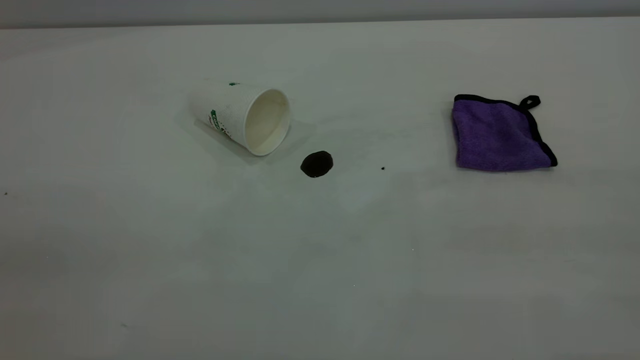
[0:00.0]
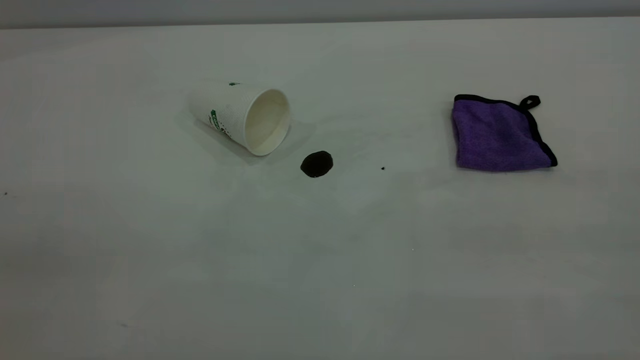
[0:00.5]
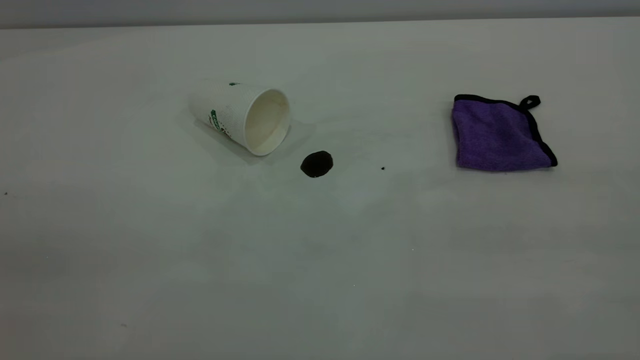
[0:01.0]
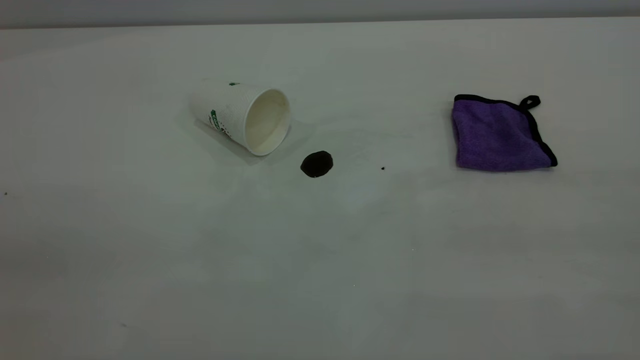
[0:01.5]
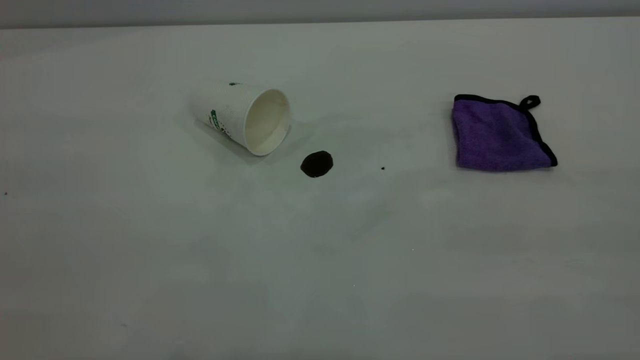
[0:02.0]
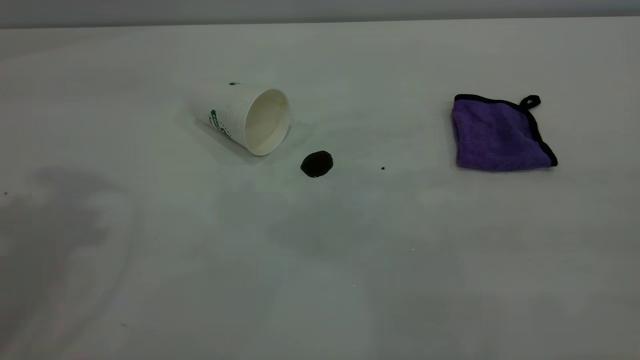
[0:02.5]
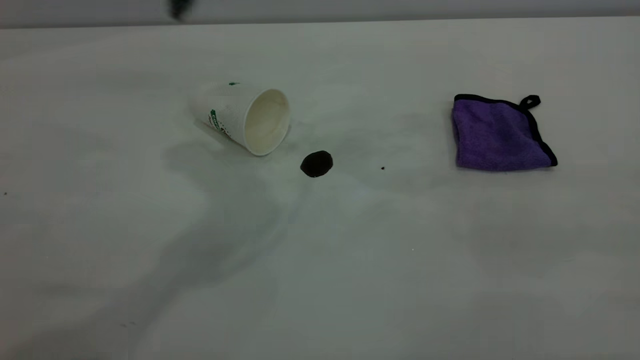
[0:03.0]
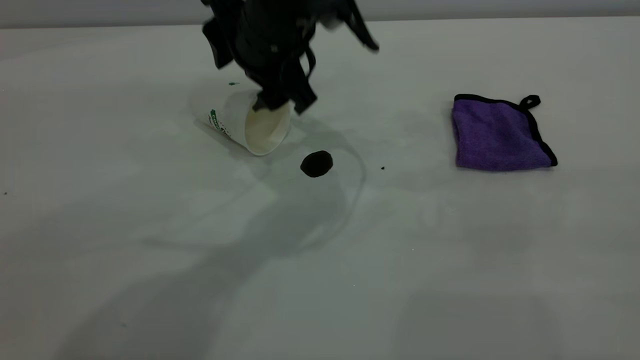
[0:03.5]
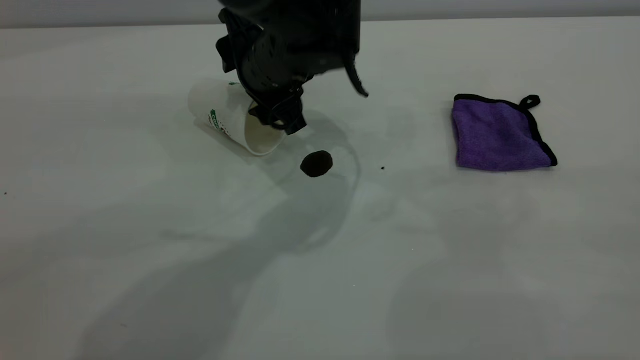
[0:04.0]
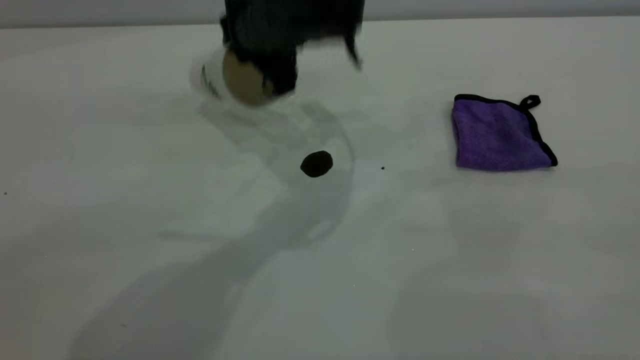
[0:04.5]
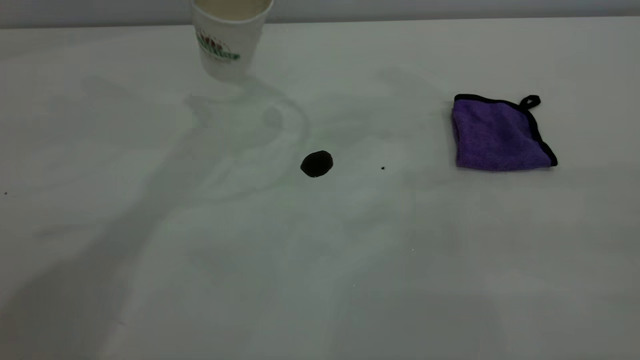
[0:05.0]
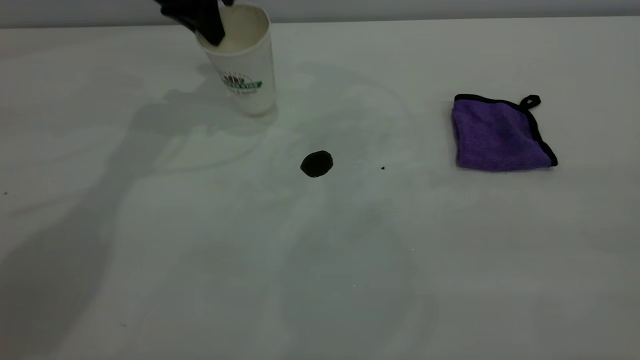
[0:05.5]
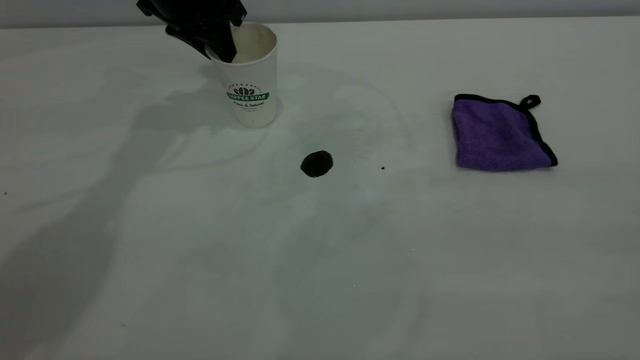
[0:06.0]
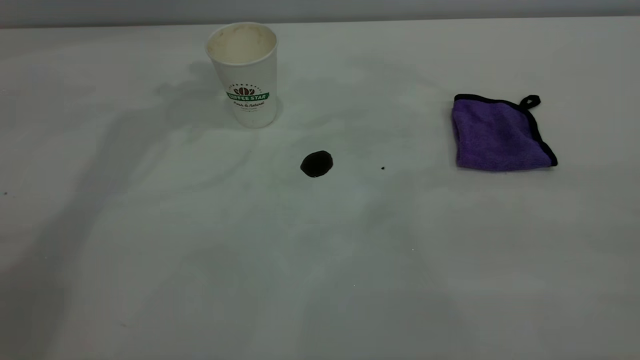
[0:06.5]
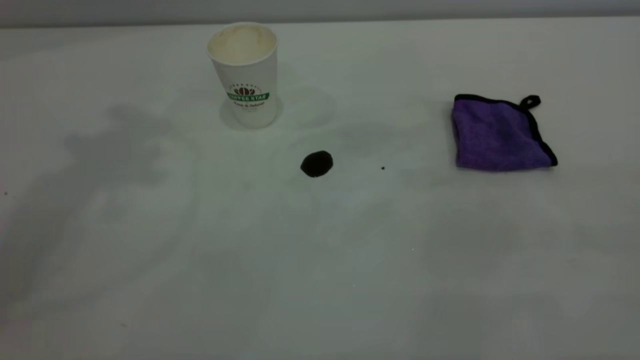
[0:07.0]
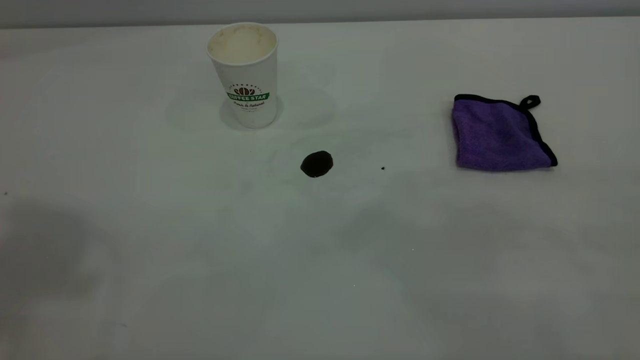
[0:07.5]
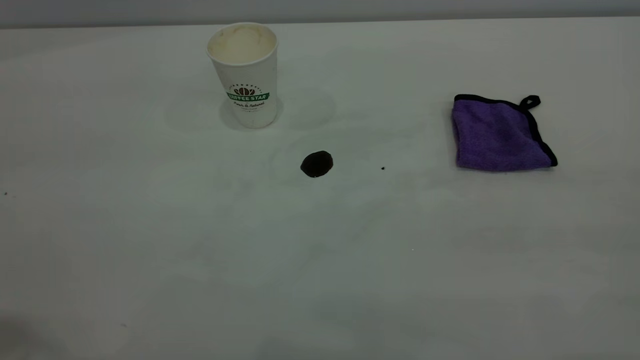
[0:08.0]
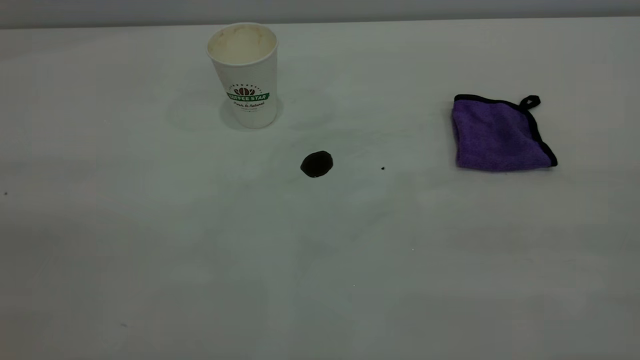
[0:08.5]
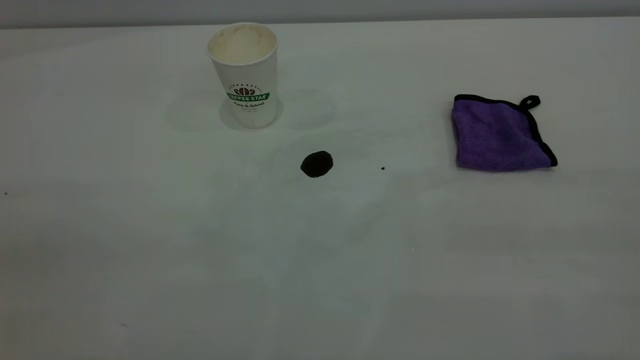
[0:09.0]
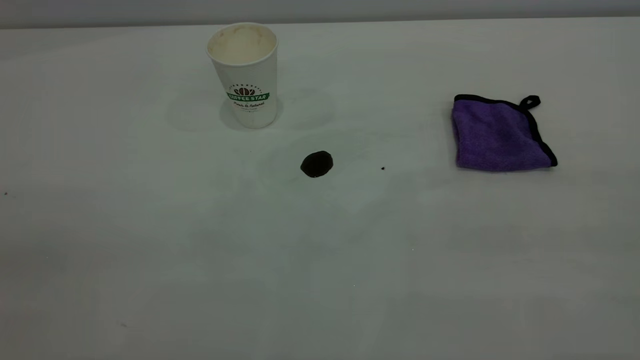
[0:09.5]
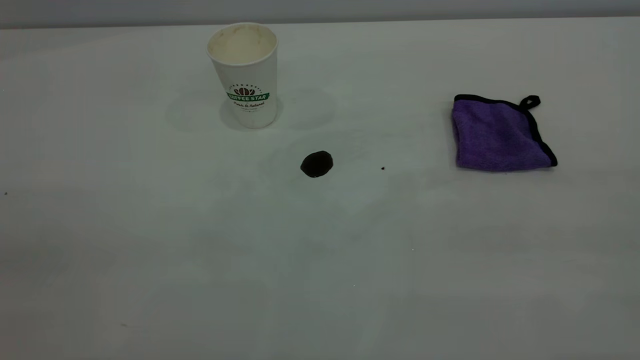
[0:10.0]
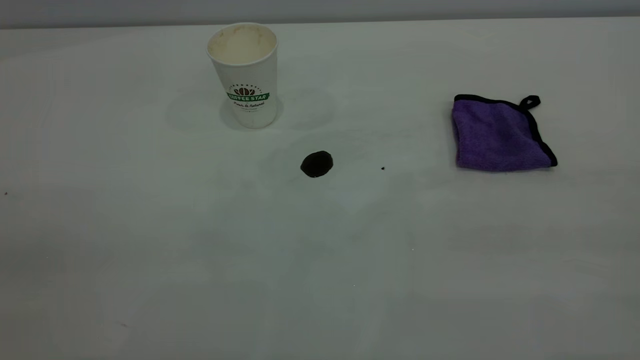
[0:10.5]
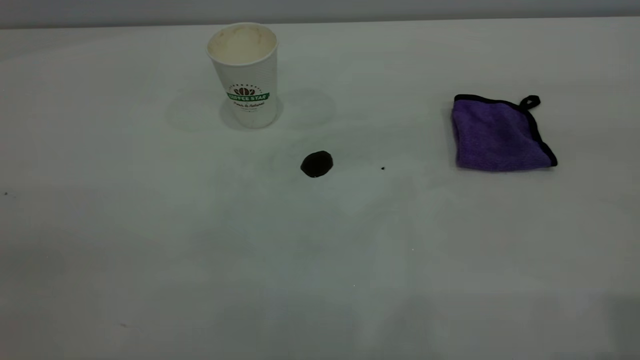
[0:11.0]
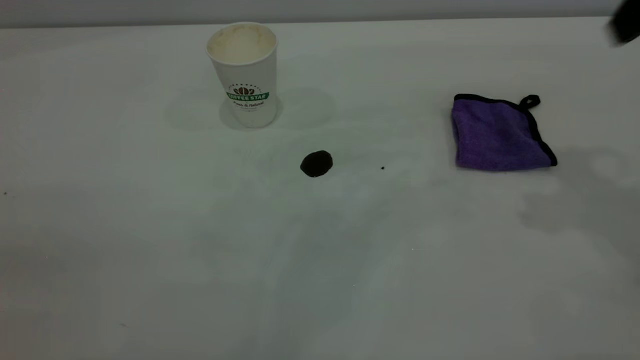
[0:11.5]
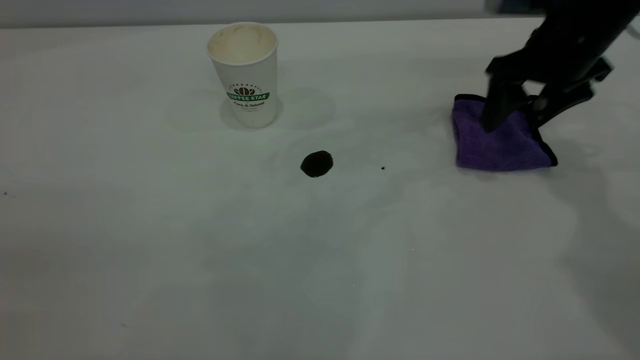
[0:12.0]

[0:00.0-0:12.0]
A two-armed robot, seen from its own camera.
Task of the whole recording: the left gripper pick up the fallen cup and place it upright, the right gripper grasp the purple rag and wipe the coffee stain on the table, the right gripper put the purple rag back in its original position.
Step, 0:00.0 to 0:06.0: Stand the paper cup upright.
0:02.0 to 0:04.0: The left gripper moves downward, forward and to the right, about 50 cm.
0:04.0 to 0:06.0: The left gripper is displaced to the left, forward and upward by roughly 20 cm, and closes up.
0:06.0 to 0:08.0: The left gripper is displaced backward and upward by approximately 50 cm.
0:10.0 to 0:12.0: The right gripper heads forward and downward, covering roughly 50 cm, and opens up.

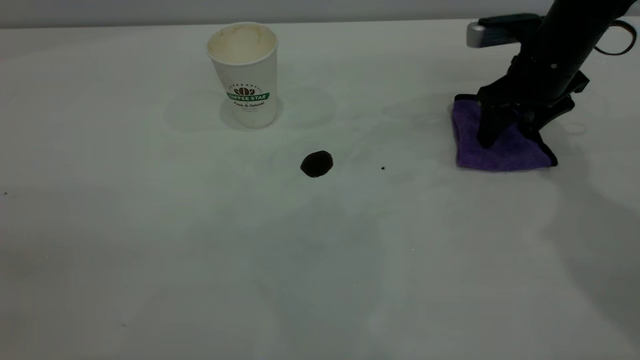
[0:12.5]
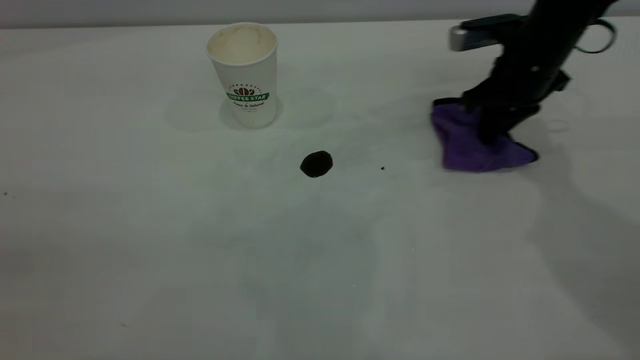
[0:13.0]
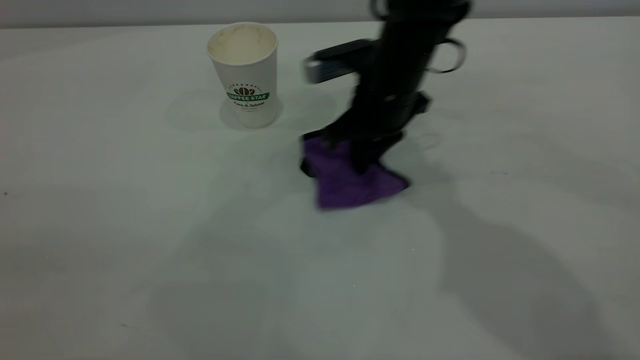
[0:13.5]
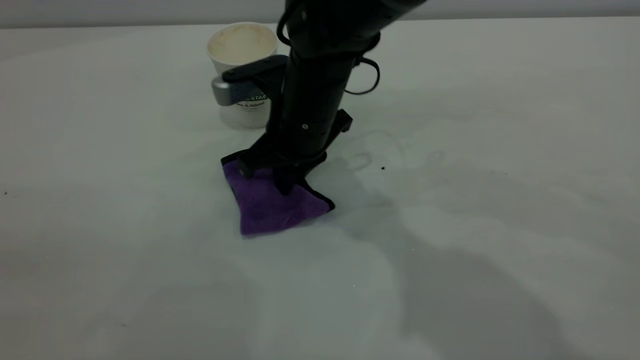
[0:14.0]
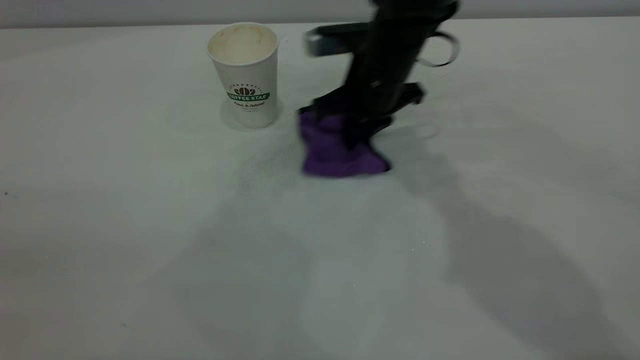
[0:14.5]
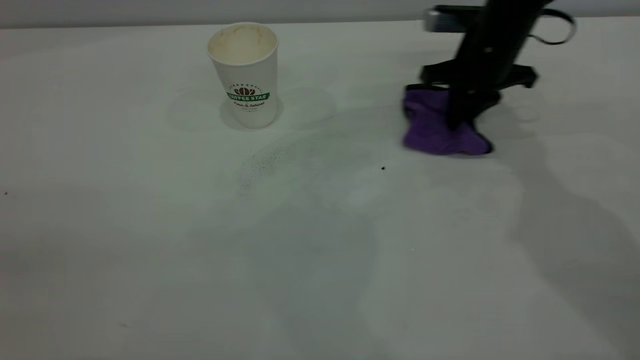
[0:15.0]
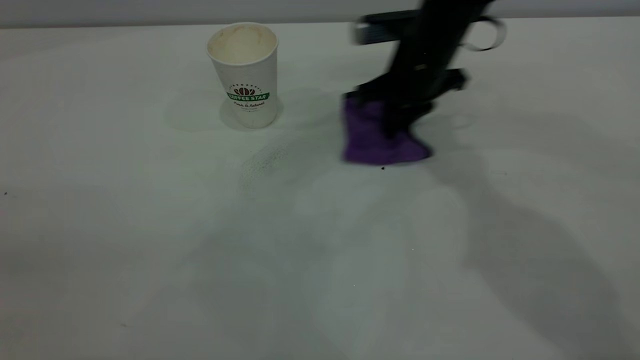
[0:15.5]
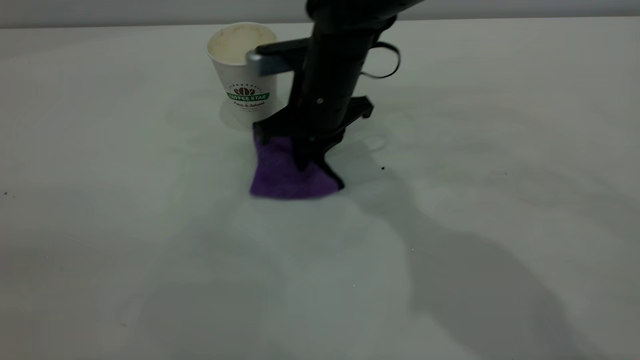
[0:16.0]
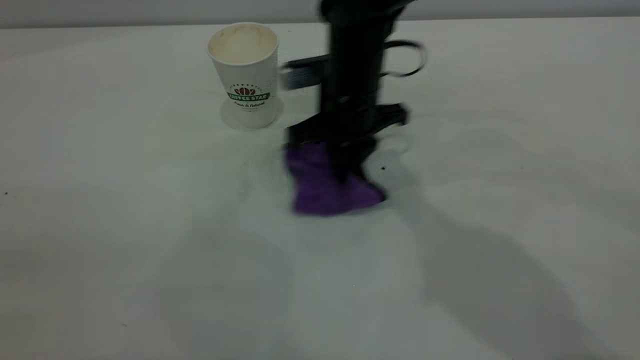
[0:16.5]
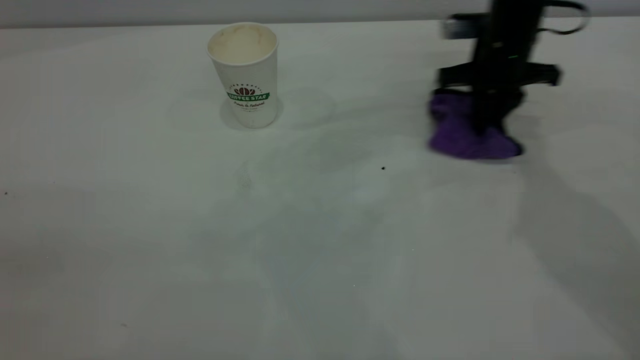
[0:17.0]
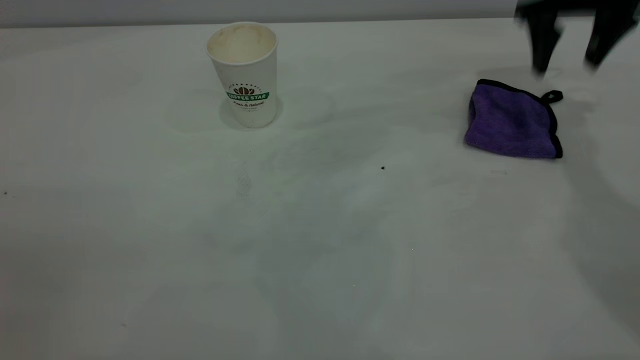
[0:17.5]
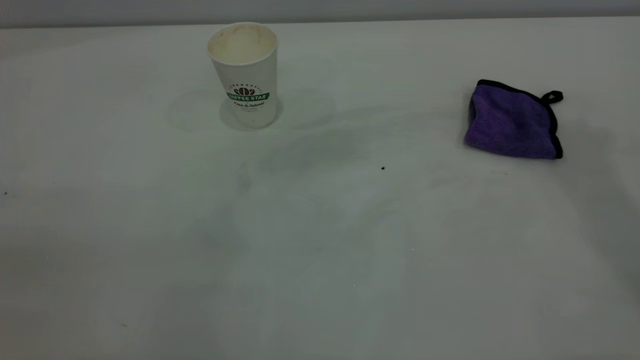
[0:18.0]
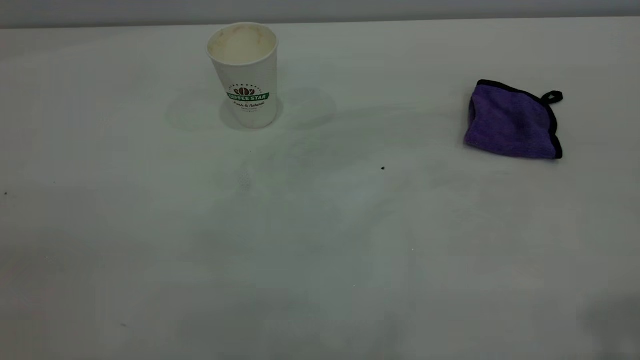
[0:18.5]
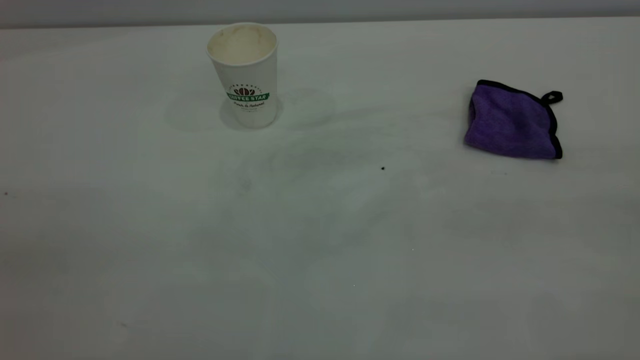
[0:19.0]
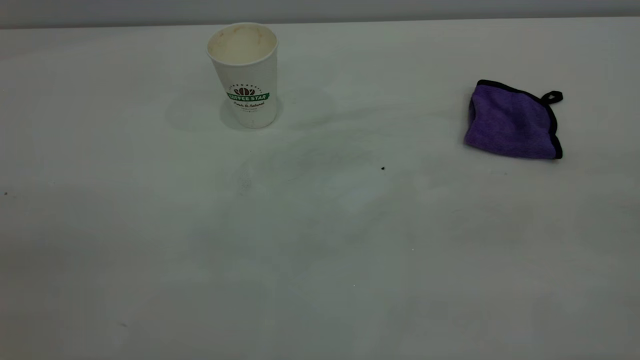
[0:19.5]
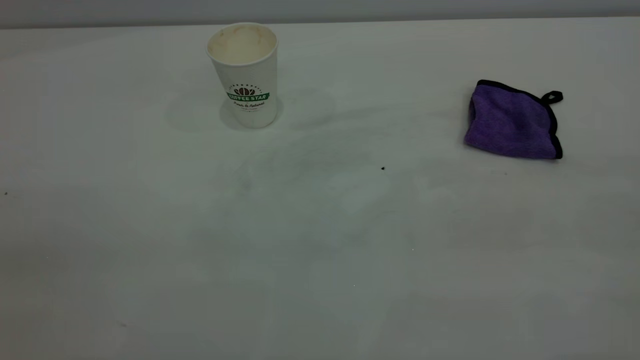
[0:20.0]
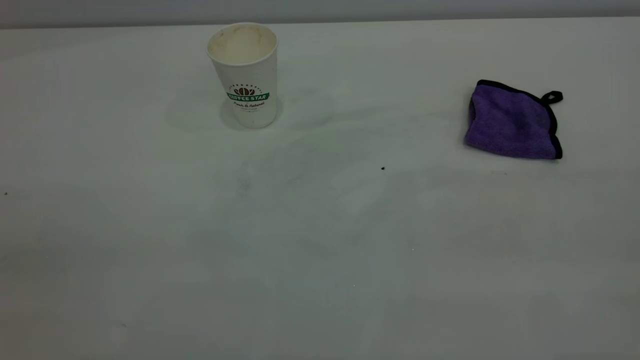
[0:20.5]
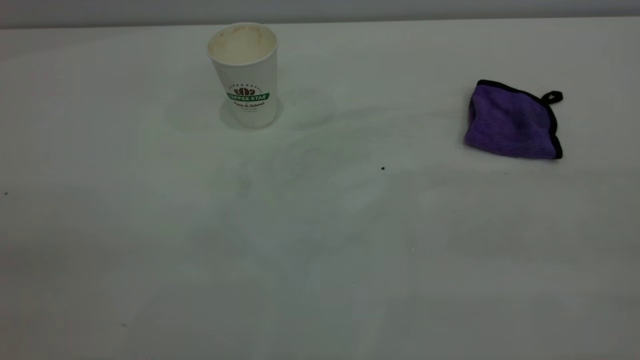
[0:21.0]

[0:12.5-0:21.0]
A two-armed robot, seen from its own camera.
Task of the whole recording: the left gripper pick up the fallen cup and place it upright, the right gripper grasp the purple rag and wipe the coffee stain on the table, the right gripper put the purple rag back in its original position.
Step, 0:12.5 to 0:17.0: Wipe the stains off the table with a rag.
0:12.5 to 0:14.5: The right gripper shifts about 15 cm to the left, and closes up.
0:14.5 to 0:16.5: The right gripper goes left and right, roughly 20 cm each way, reversing 2 times.
0:16.5 to 0:19.0: The right gripper travels backward, upward and to the right by about 50 cm, and opens up.
